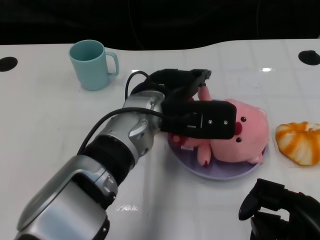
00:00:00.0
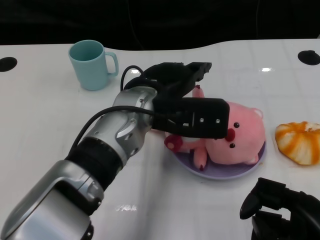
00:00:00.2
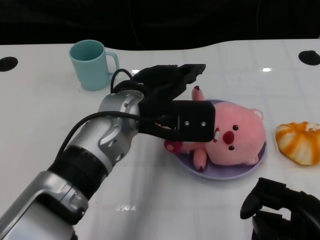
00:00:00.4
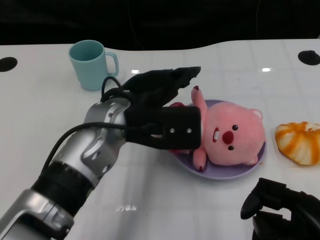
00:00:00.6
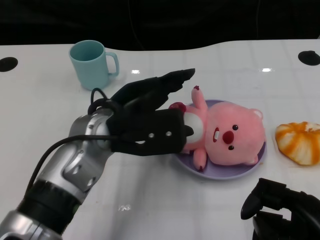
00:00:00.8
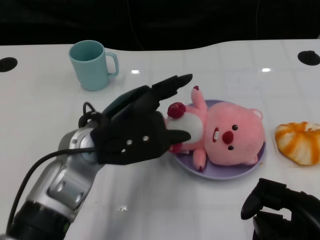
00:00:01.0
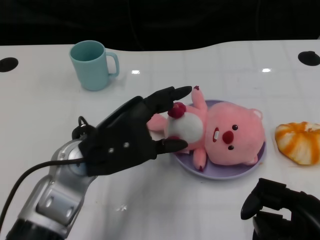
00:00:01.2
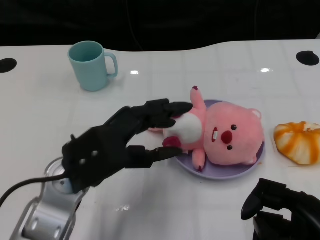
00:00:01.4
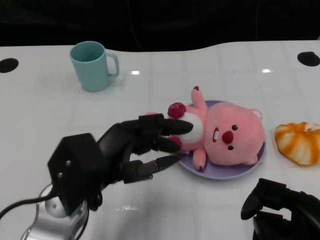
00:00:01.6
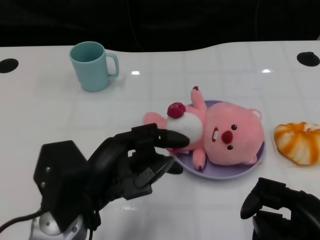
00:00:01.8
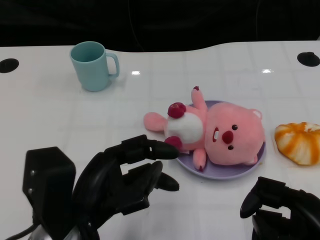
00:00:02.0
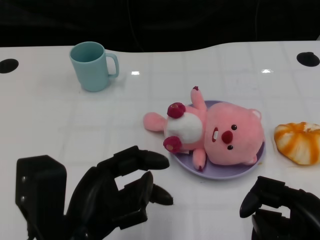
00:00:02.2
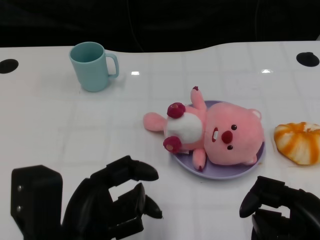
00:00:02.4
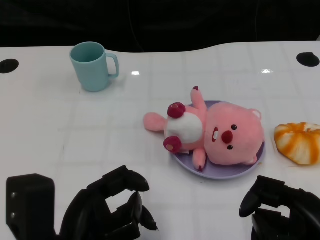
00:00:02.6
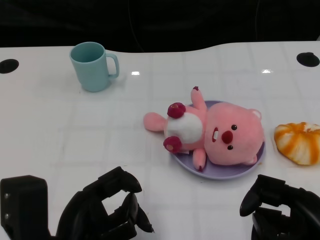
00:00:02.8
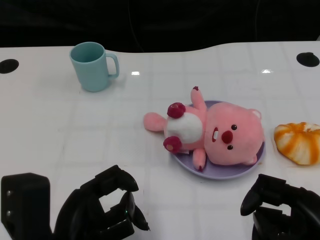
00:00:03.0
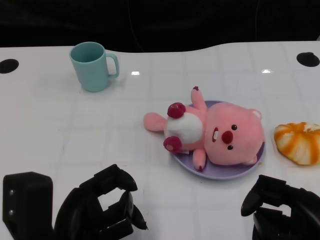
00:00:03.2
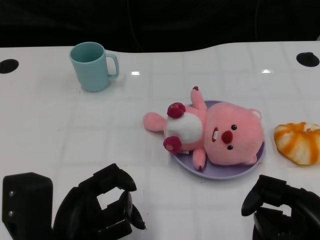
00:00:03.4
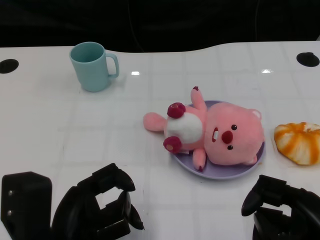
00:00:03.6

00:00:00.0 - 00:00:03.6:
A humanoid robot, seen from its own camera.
Task of the whole recording: Pick up the doll on one side of the plate and place it into the plate.
00:00:00.0 - 00:00:01.8: The left hand travels backward and to the left by approximately 15 cm.
00:00:01.8 - 00:00:03.6: The left hand shifts approximately 5 cm backward.

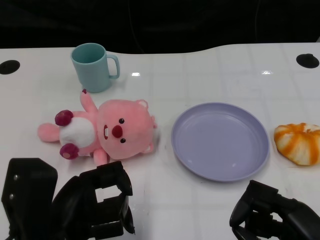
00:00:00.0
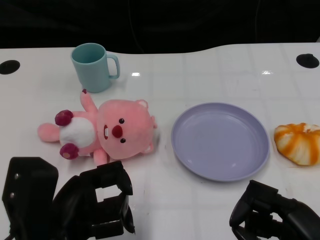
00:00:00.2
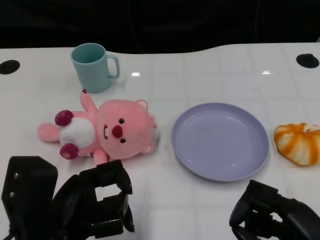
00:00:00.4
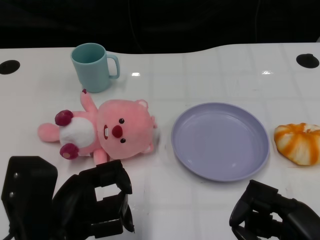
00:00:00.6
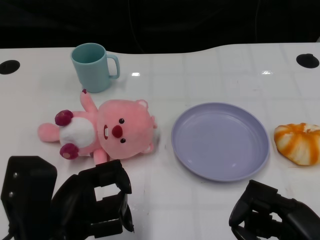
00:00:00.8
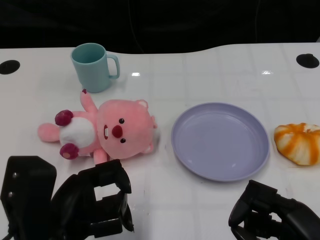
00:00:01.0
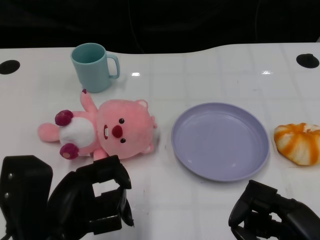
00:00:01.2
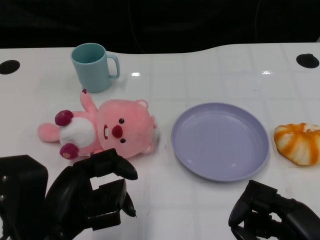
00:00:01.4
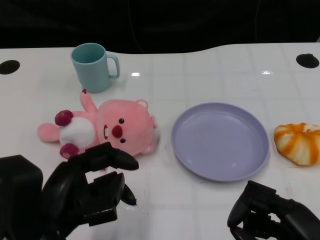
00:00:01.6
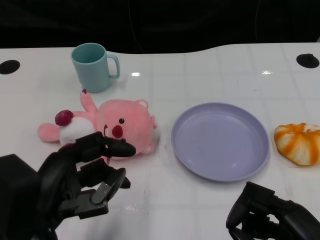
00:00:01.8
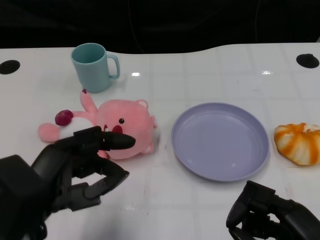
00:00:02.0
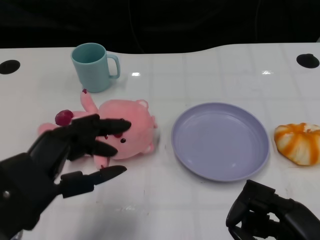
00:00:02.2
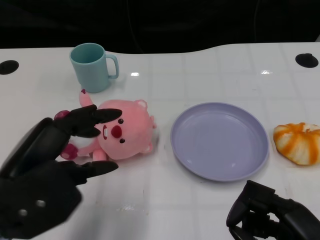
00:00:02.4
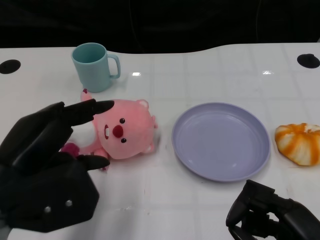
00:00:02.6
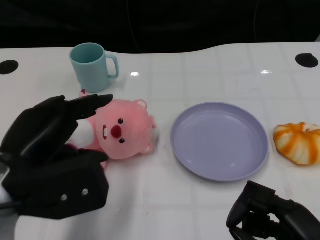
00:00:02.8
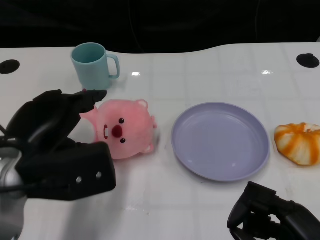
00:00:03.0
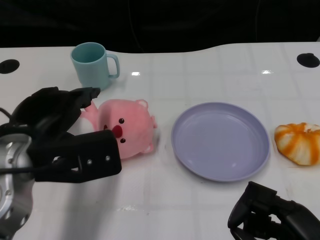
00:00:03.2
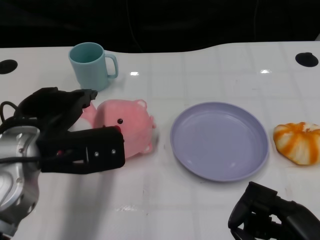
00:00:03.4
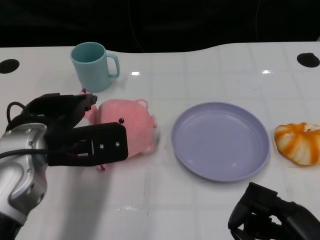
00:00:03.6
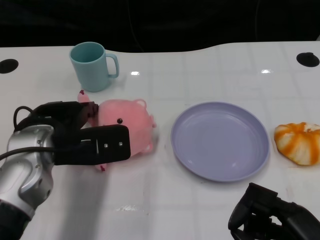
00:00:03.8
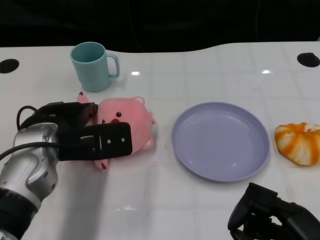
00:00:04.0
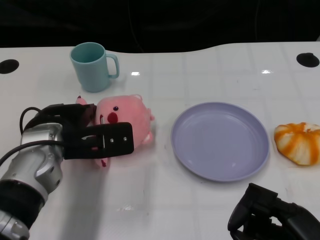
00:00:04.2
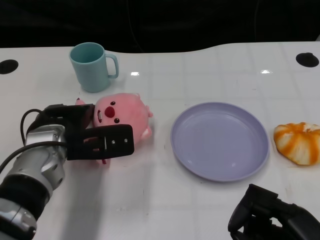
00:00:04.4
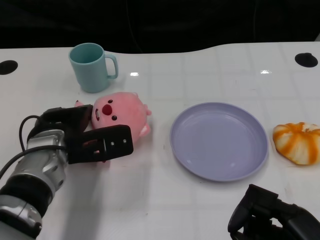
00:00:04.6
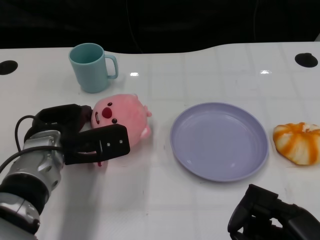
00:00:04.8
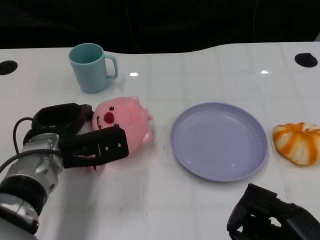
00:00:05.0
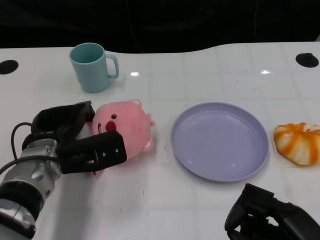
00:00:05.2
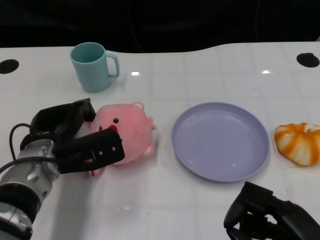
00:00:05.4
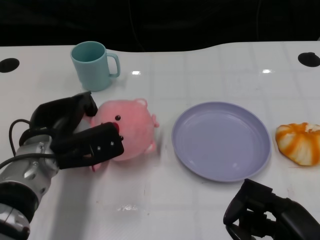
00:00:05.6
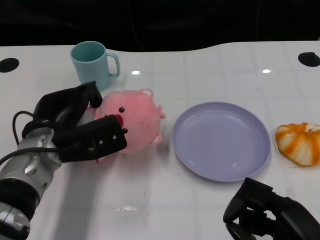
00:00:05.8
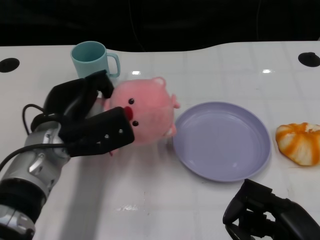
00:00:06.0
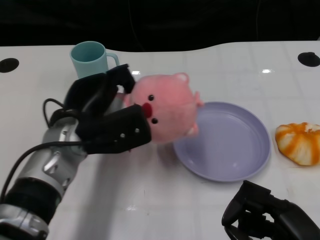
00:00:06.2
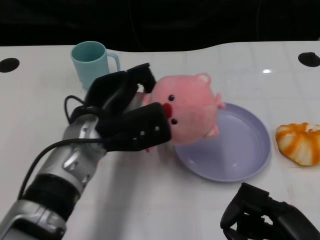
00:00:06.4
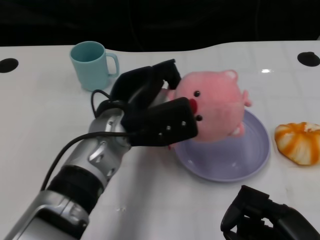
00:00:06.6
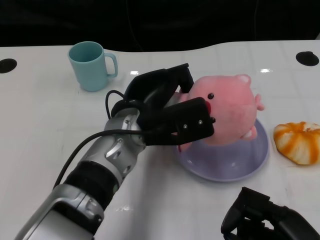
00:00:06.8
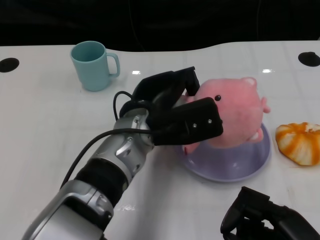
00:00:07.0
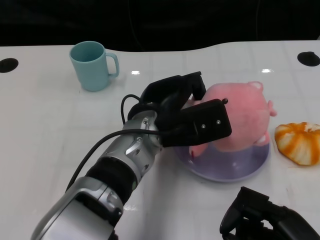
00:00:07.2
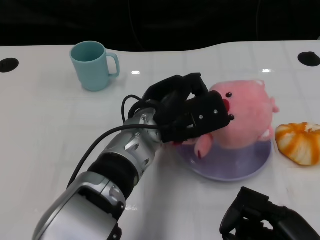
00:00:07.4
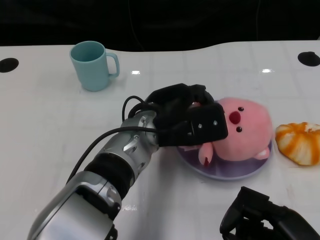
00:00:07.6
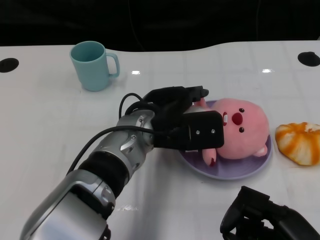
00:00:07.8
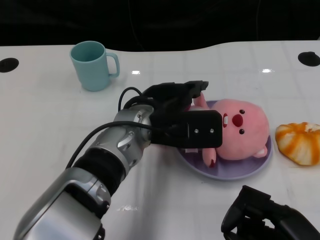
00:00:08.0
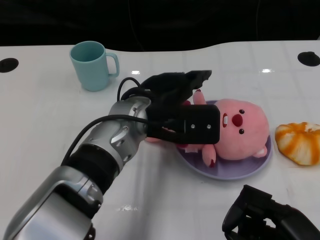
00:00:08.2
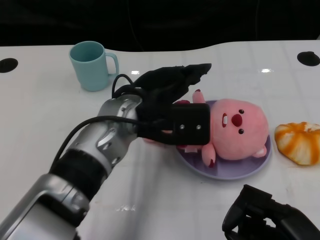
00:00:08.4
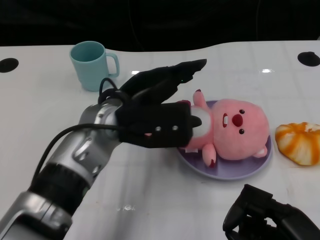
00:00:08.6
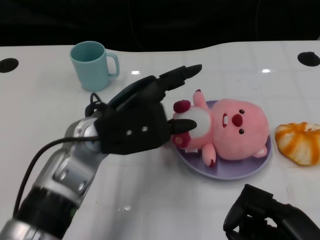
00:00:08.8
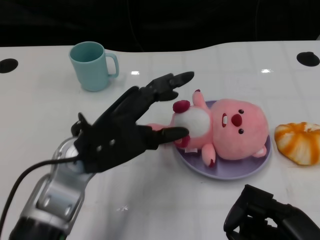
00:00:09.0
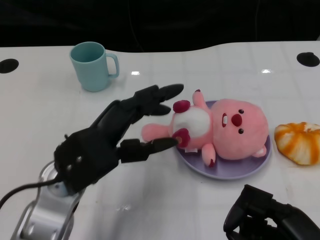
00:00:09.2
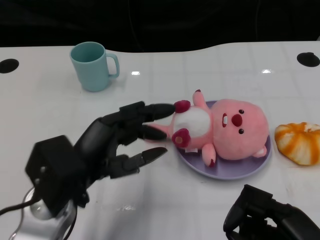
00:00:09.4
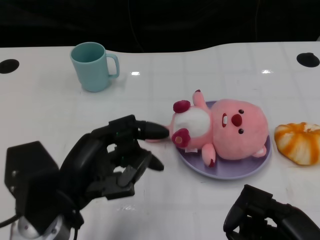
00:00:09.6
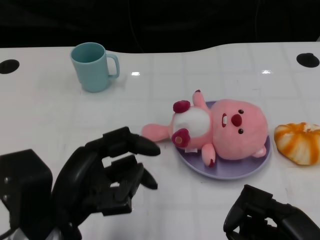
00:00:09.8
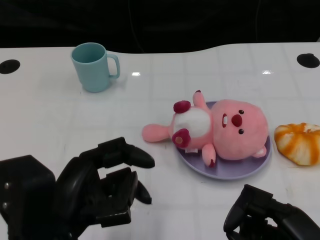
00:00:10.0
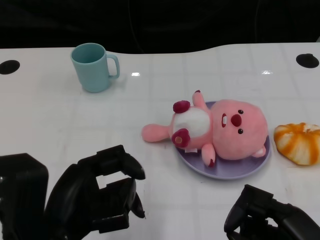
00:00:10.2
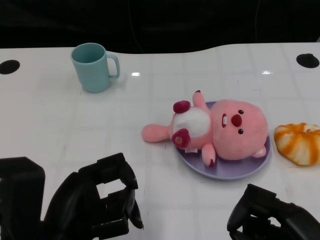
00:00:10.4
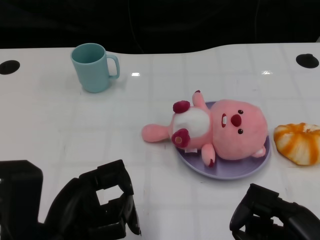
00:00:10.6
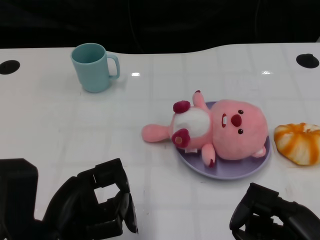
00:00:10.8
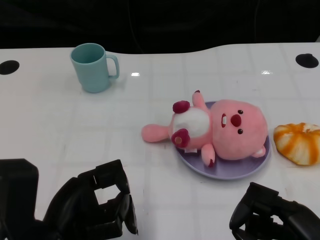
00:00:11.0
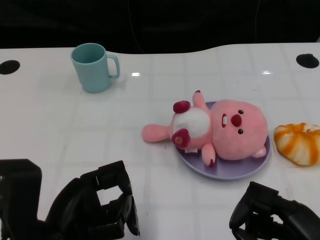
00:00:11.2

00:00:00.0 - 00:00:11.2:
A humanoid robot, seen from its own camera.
Task of the whole recording: Pick up the doll on one side of the plate and place it into the plate.
Step, 00:00:01.2 - 00:00:05.6: Grasp the pink doll with the left gripper.
Step, 00:00:05.8 - 00:00:08.2: Place the pink doll into the plate with the left gripper.
00:00:01.6 - 00:00:03.2: The left hand heads forward, covering roughly 10 cm.
00:00:03.2 - 00:00:04.8: The left hand shifts approximately 10 cm downward and forward.
00:00:04.8 - 00:00:06.4: The left hand is displaced to the right by some 5 cm.
00:00:06.4 - 00:00:08.0: The left hand moves to the right, some 5 cm.
00:00:08.0 - 00:00:09.6: The left hand shifts about 20 cm to the left and backward.

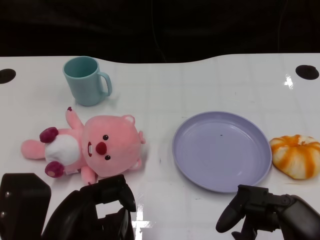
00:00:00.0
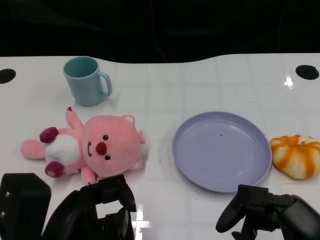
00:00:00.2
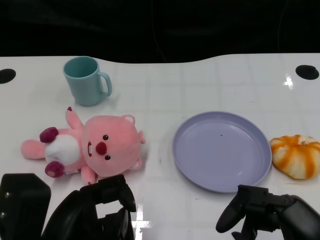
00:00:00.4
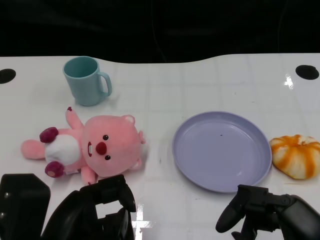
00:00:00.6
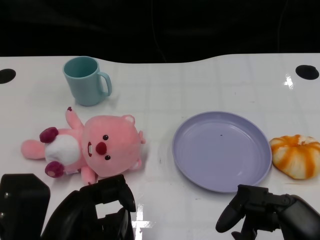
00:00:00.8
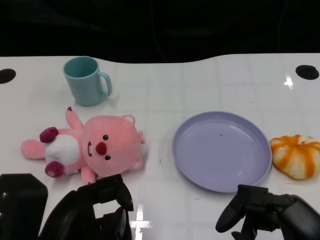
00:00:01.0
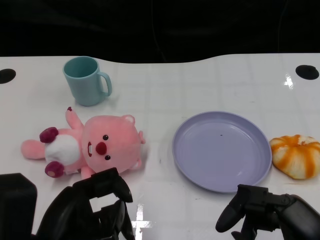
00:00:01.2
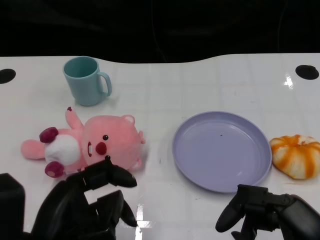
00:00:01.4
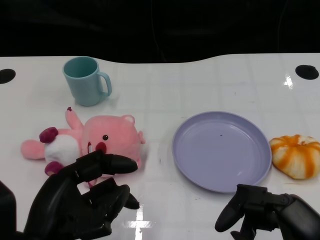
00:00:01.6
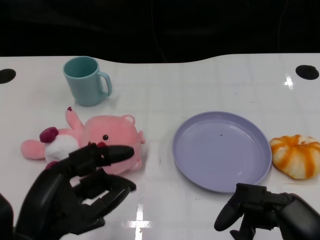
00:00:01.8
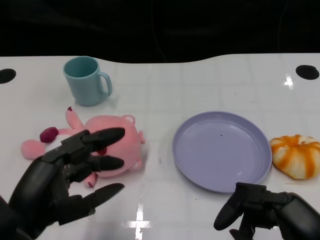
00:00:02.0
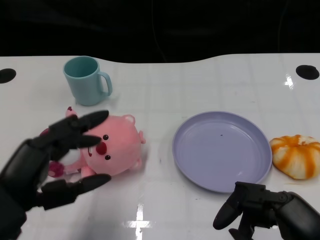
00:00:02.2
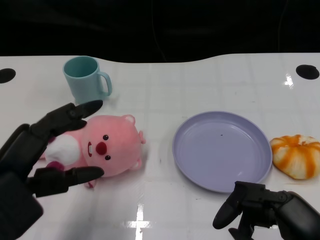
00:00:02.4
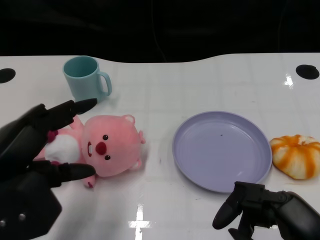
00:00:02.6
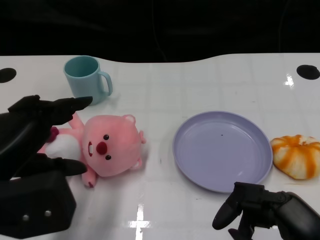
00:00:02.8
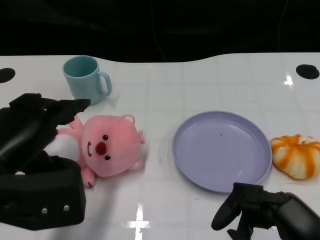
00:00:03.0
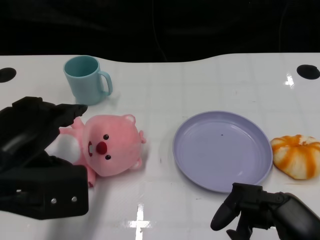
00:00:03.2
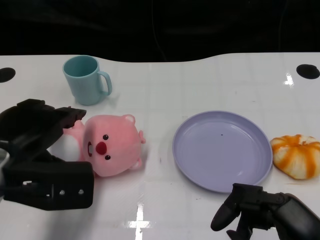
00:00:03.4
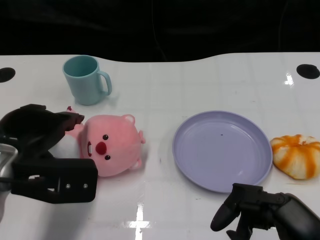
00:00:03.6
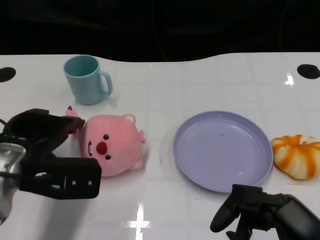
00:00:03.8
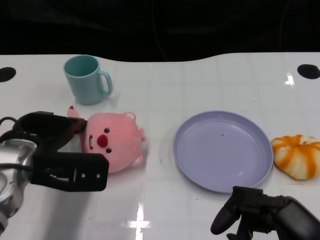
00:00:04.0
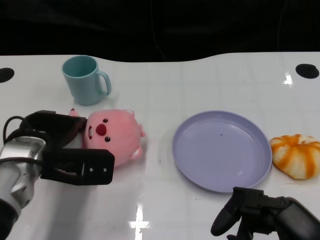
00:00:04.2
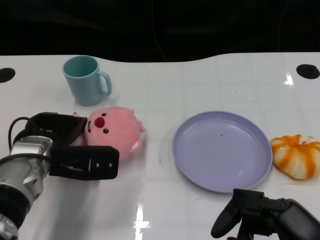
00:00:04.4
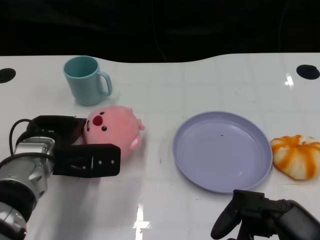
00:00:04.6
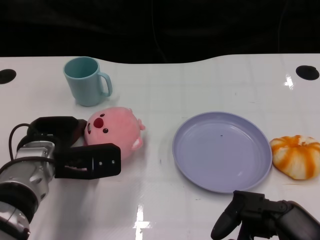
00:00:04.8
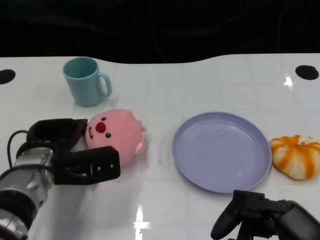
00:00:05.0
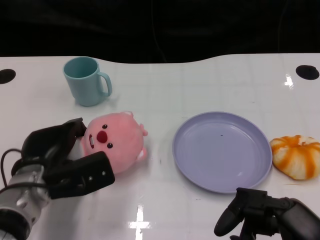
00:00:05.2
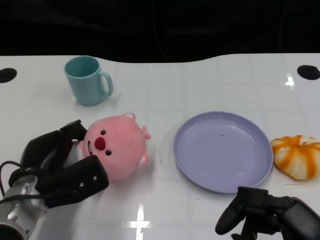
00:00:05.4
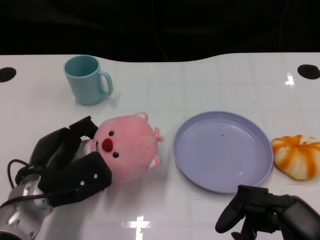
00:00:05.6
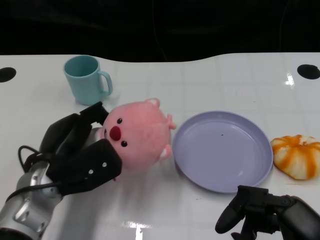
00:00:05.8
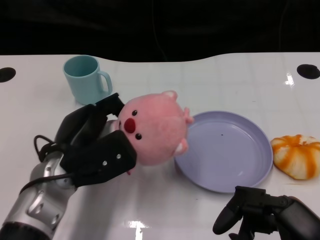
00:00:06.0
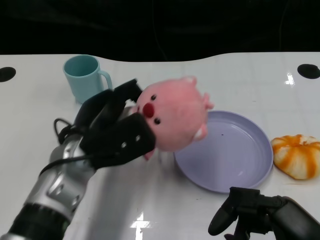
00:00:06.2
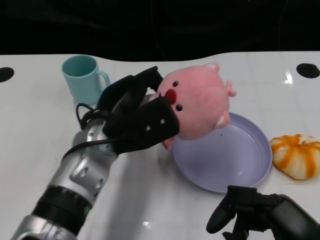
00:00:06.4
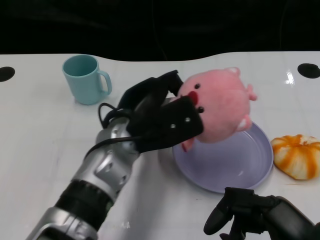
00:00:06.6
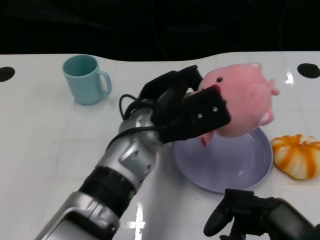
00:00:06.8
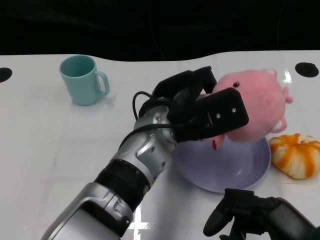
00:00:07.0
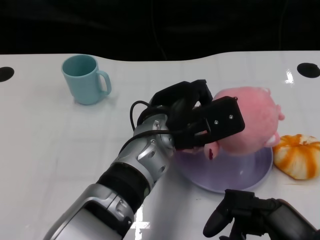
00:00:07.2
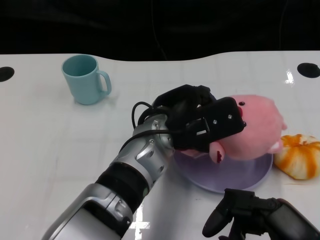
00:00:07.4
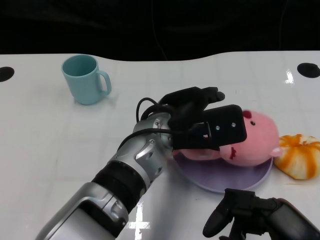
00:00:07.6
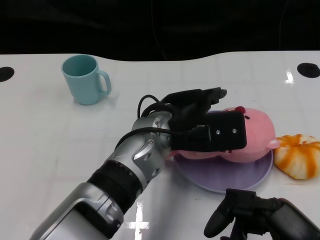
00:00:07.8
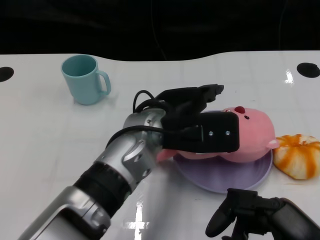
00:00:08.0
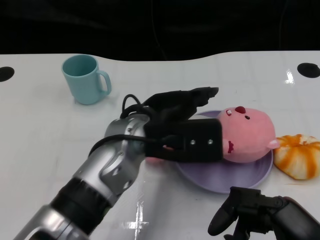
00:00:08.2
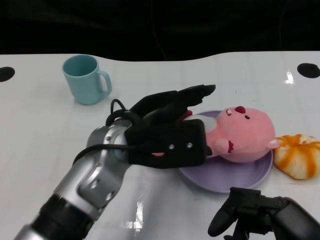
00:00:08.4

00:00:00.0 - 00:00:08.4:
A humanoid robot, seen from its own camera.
Task of the whole recording: Pick up the doll on one side of the plate and place it into the plate.
Step, 00:00:01.0 - 00:00:05.4: Grasp the pink doll with the left gripper.
Step, 00:00:05.6 - 00:00:08.0: Place the pink doll into the plate with the left gripper.
00:00:01.4 - 00:00:02.8: The left hand heads upward and to the left, covering about 10 cm.
00:00:02.8 - 00:00:04.2: The left hand shifts approximately 15 cm forward and downward.
00:00:04.2 - 00:00:05.6: The left hand heads downward, covering some 5 cm.
00:00:05.6 - 00:00:07.0: The left hand goes about 20 cm to the right and upward.
00:00:07.0 - 00:00:08.4: The left hand shifts roughly 5 cm to the left.
